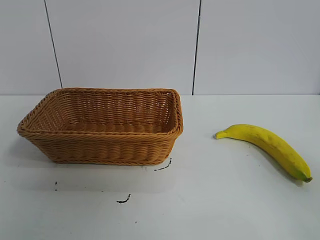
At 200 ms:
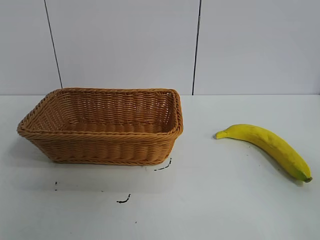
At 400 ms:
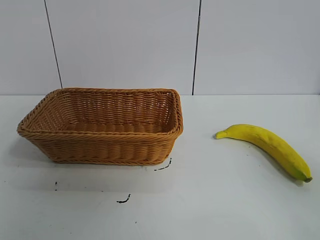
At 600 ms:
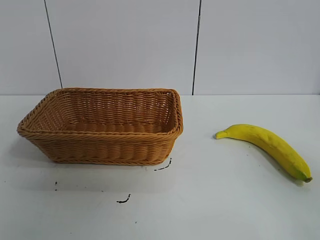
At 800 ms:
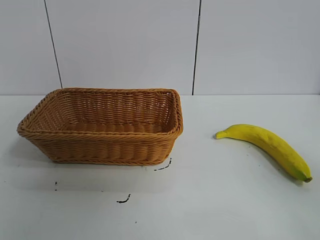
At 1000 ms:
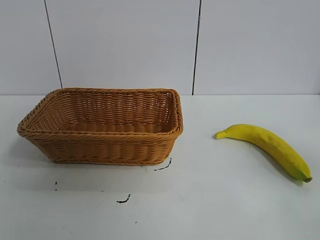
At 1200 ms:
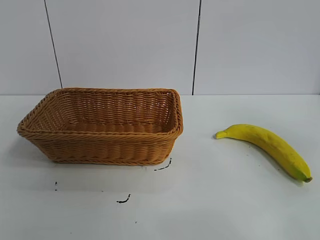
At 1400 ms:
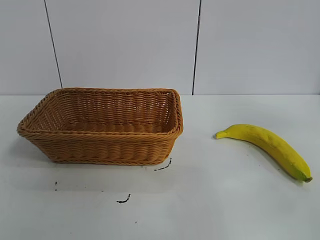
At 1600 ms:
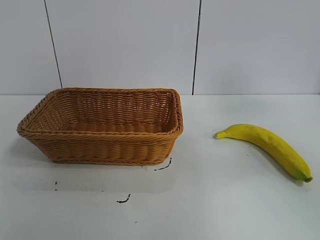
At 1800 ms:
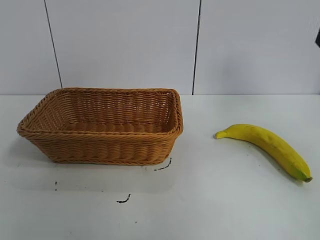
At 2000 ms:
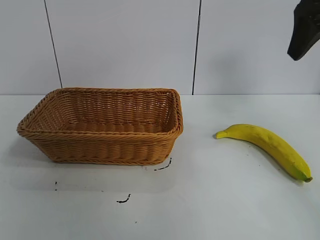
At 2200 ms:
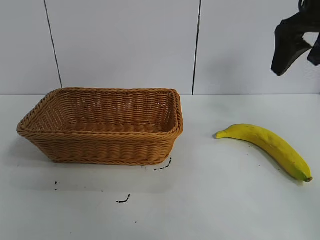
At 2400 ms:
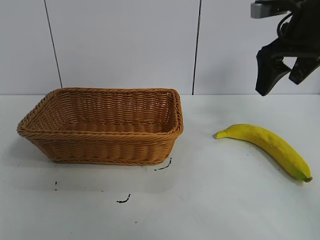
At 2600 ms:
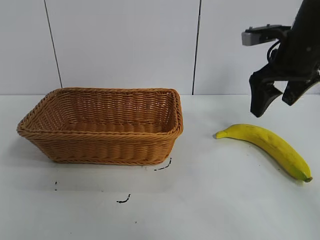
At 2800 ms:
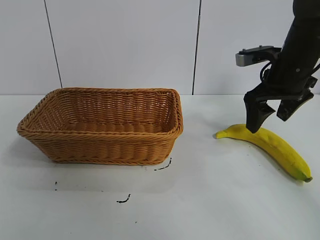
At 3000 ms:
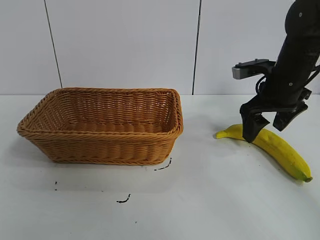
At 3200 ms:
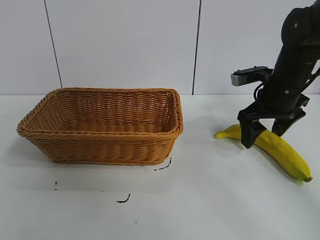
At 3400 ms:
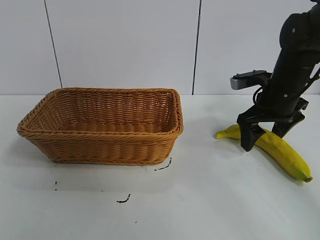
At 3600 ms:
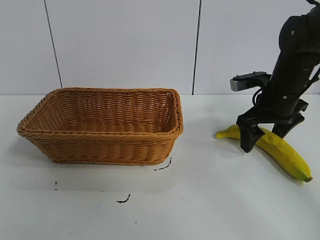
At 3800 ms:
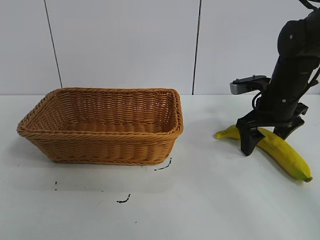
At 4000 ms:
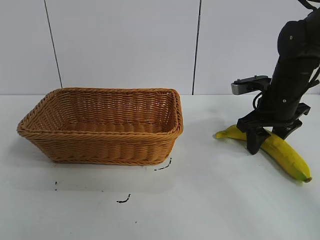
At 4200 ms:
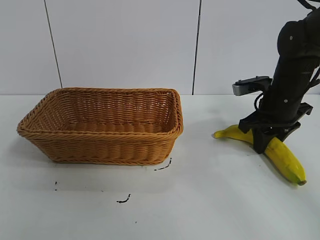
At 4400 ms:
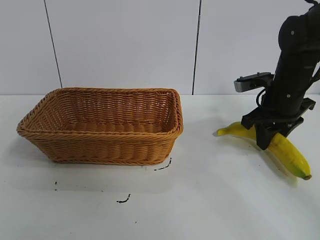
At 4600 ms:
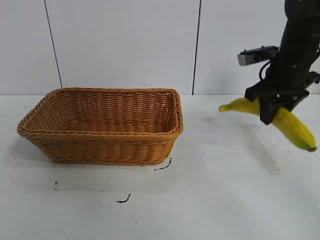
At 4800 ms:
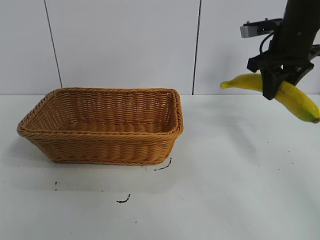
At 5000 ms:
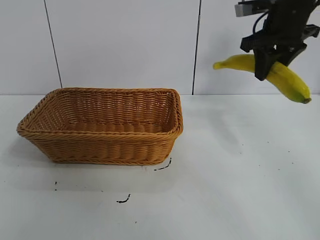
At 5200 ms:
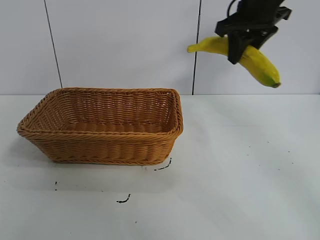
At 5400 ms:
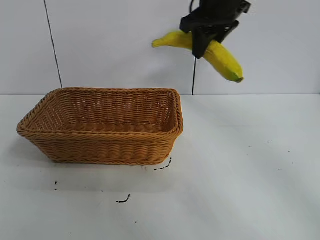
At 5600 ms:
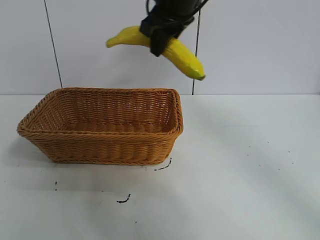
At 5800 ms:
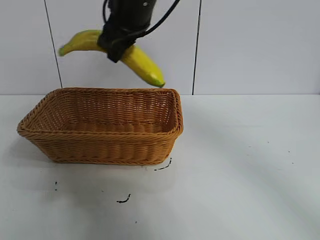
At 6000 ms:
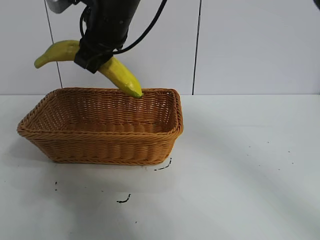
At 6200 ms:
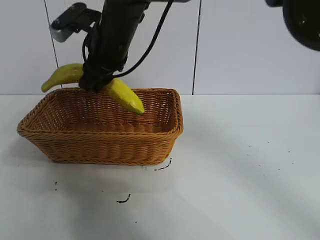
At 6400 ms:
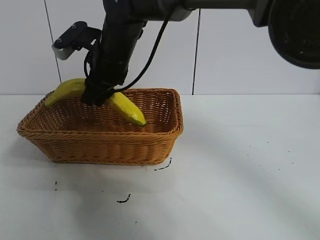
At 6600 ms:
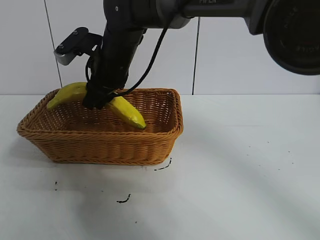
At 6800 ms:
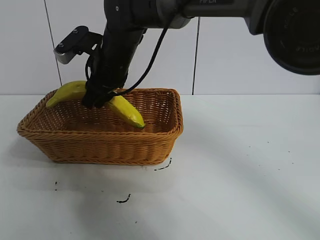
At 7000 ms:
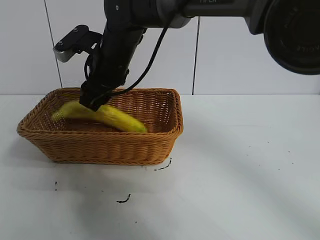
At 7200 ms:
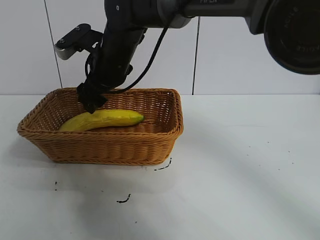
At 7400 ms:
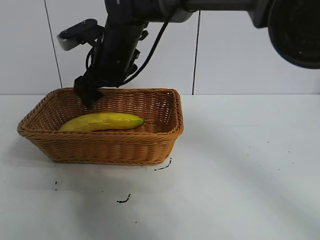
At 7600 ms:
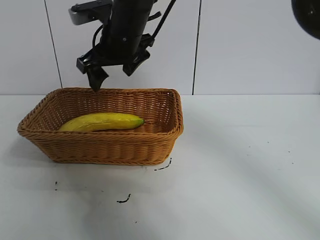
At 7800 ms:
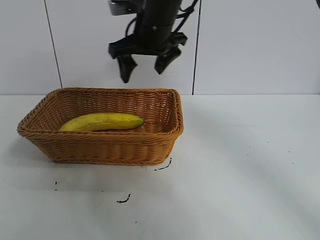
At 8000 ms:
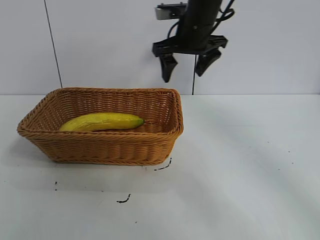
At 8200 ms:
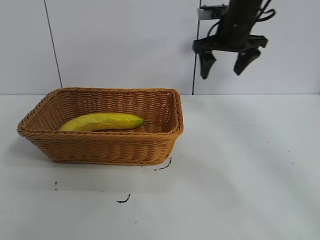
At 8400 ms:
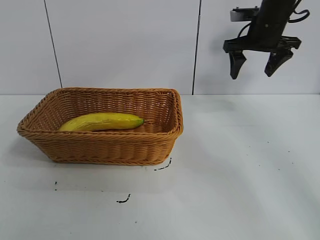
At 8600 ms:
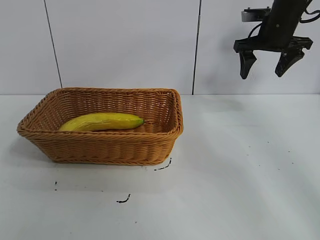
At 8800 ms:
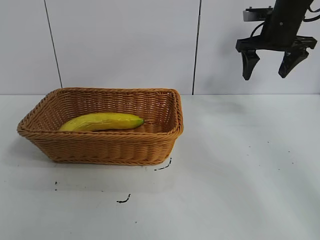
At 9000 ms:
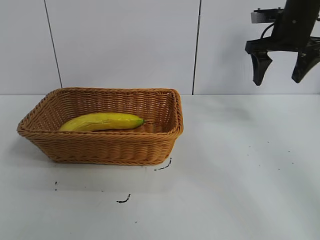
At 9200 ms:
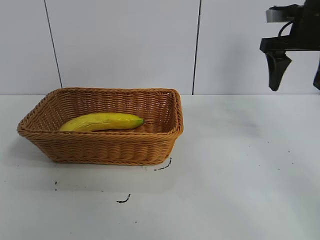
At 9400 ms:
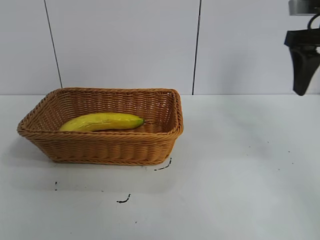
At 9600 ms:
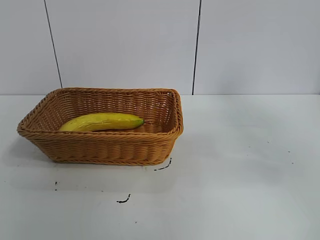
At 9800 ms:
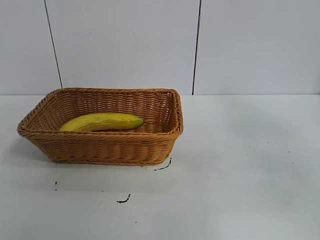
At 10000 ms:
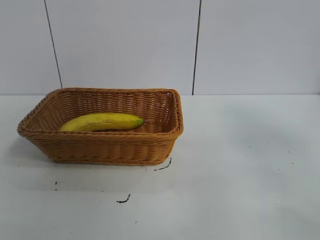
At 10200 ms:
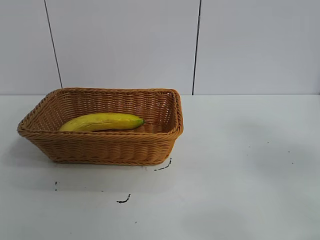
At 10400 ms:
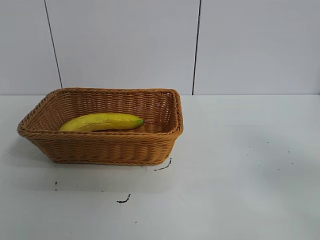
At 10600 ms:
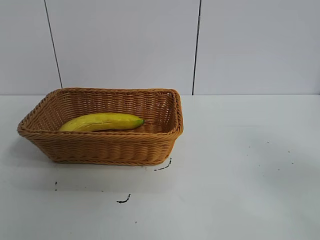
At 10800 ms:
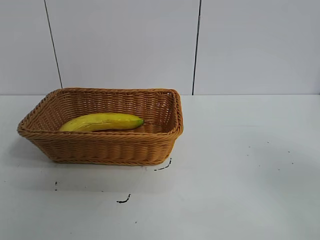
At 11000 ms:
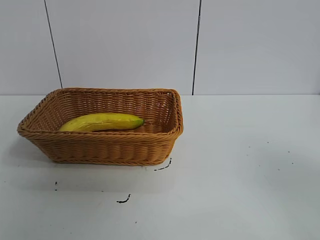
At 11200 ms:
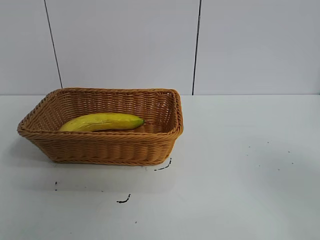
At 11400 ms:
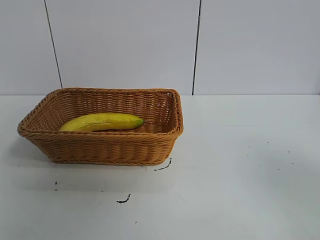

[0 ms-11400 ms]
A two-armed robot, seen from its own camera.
Task of the whole recording: pick up the banana and put it into the basket.
Step, 800 ms to 4200 ms: Grasp the banana with right gripper.
Step, 4400 ms to 7000 ms: Place the banana in the basket with right gripper.

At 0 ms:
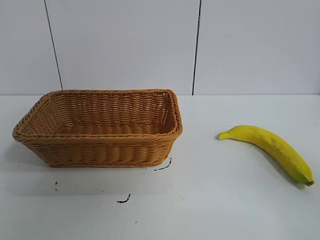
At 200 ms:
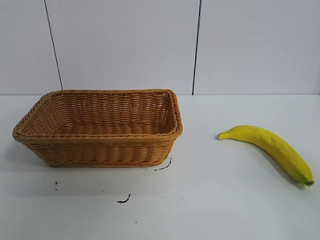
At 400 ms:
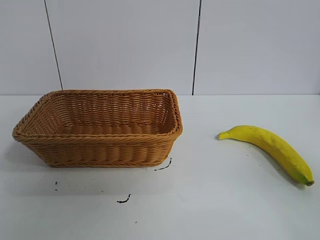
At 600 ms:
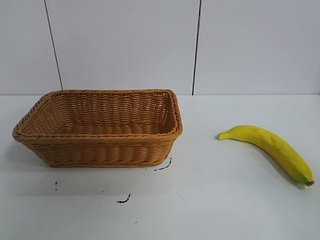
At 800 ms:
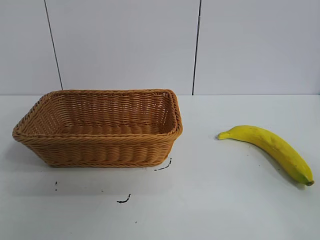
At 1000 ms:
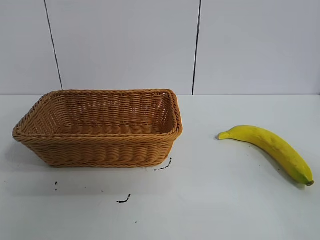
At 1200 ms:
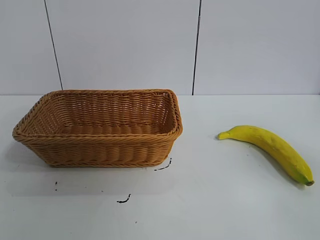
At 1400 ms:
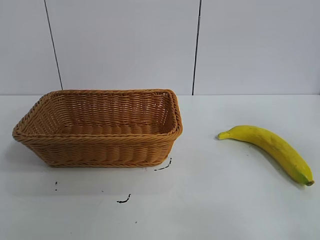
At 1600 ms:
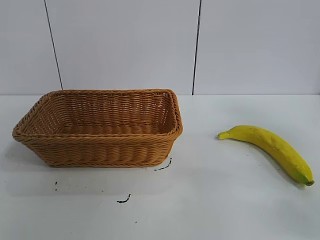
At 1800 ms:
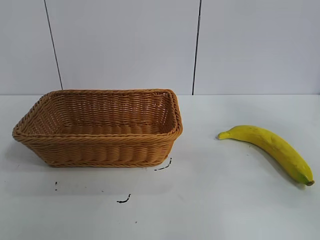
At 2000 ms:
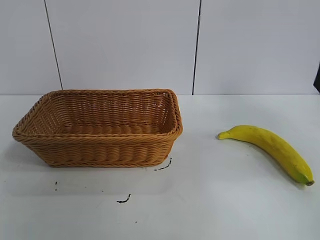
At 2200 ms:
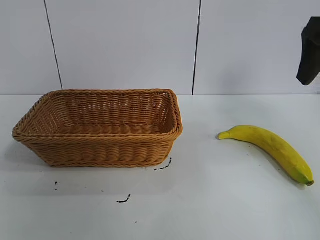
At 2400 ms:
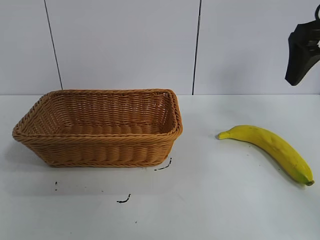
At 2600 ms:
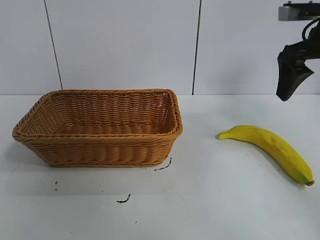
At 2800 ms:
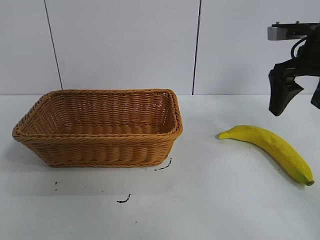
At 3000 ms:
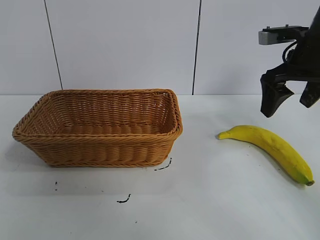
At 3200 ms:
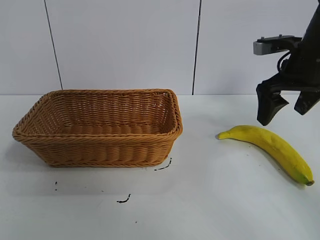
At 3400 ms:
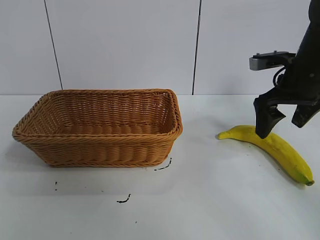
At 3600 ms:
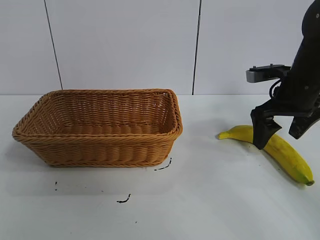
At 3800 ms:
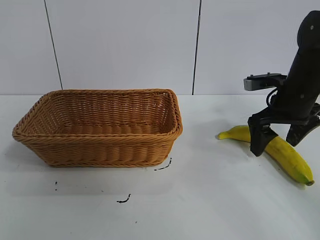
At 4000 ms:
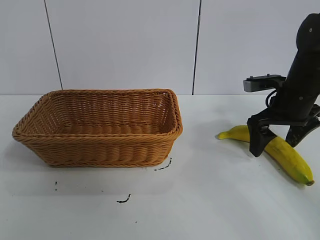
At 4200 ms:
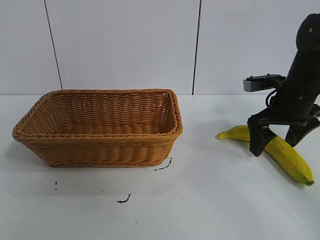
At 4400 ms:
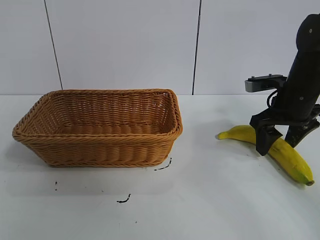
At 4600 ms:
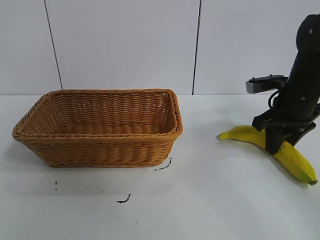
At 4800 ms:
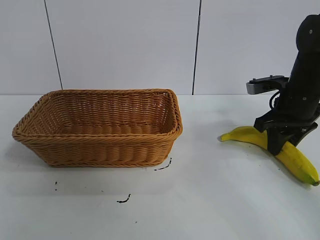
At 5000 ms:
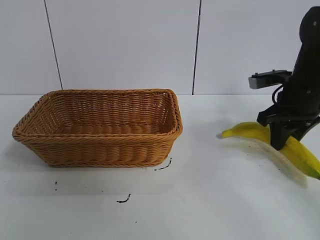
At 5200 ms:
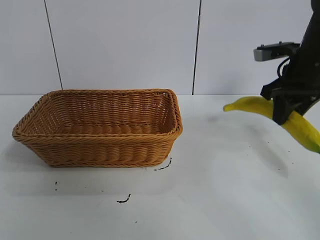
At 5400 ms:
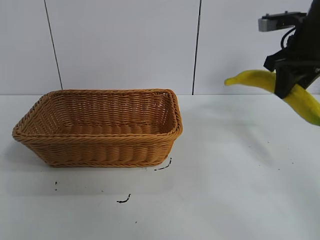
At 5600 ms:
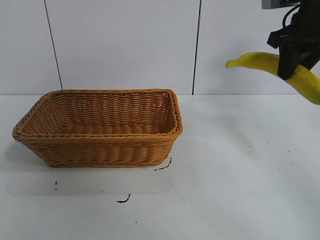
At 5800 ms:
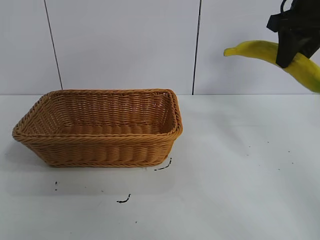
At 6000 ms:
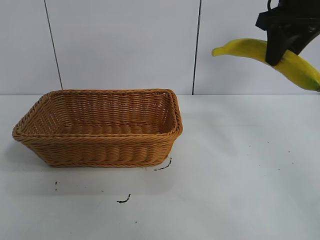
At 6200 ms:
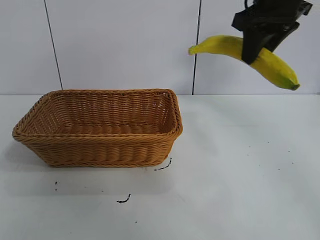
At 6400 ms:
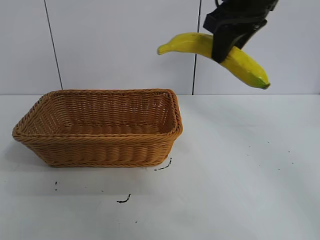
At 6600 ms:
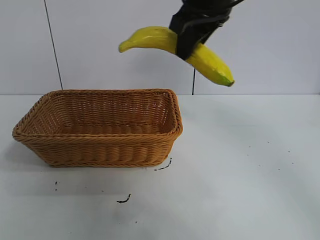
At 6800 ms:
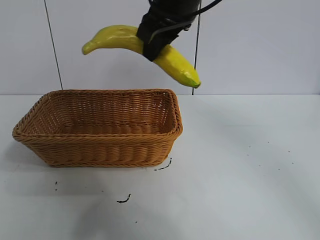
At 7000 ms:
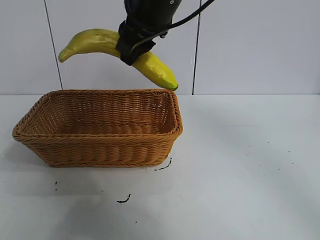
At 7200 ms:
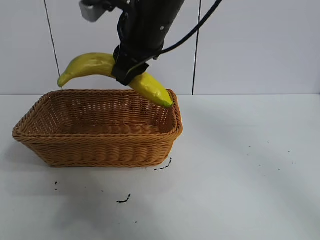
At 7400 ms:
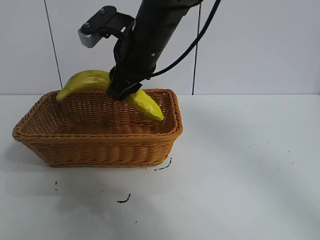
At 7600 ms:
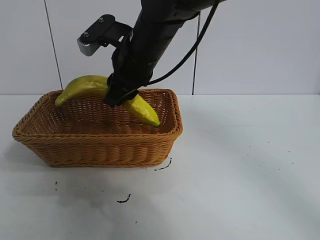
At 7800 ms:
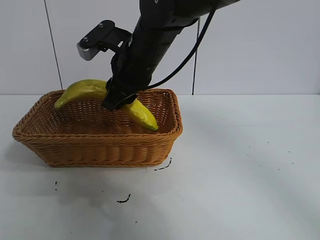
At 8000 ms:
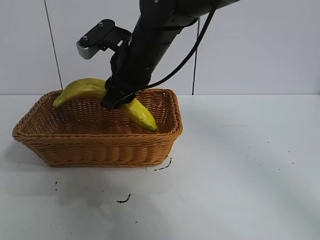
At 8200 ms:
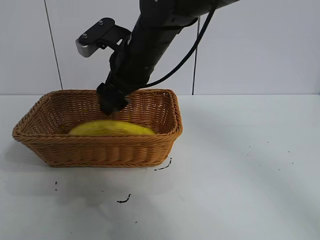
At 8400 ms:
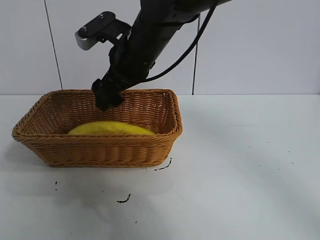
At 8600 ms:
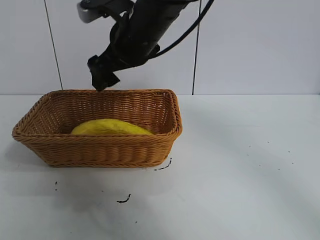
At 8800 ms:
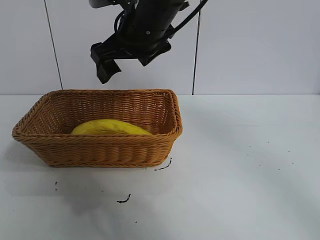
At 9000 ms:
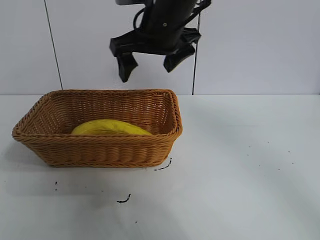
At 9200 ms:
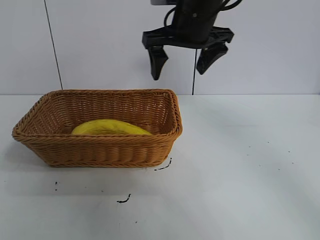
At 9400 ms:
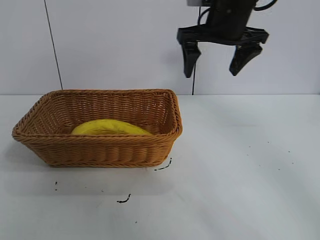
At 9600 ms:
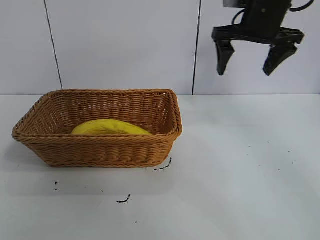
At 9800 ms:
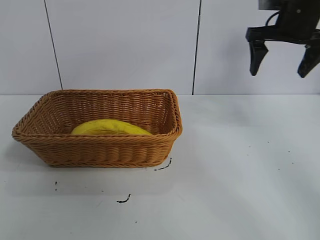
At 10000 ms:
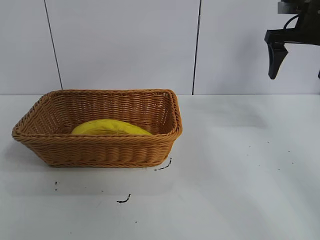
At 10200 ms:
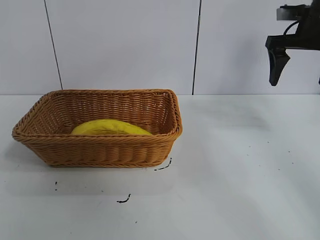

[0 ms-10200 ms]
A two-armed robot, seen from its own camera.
Task of the whole recording: pick up the banana and put it into the basket.
Step, 1000 ms to 5000 ms: Grasp the banana with right gripper.
Step, 5200 ms to 8400 ms: Place the banana in the basket with right gripper.
